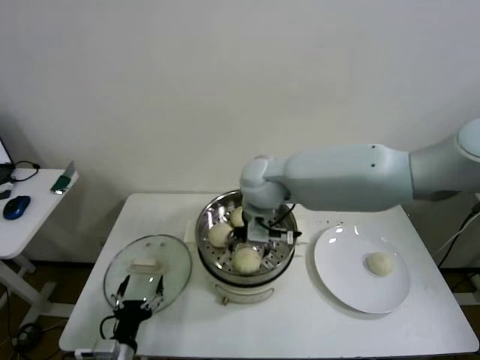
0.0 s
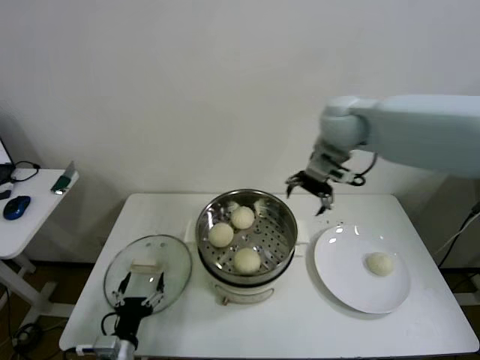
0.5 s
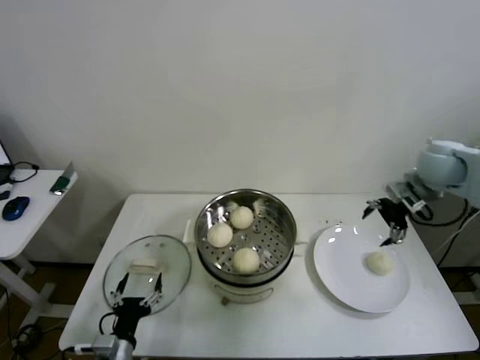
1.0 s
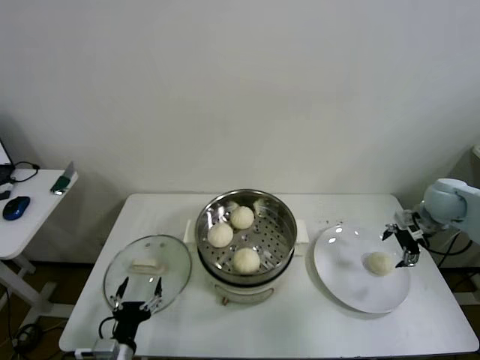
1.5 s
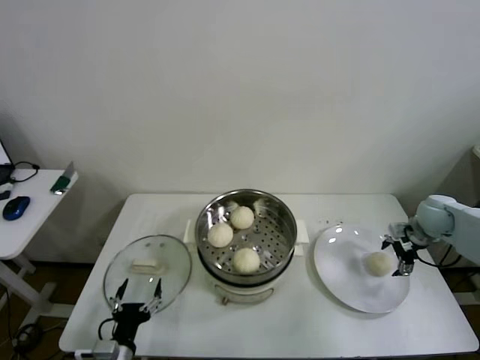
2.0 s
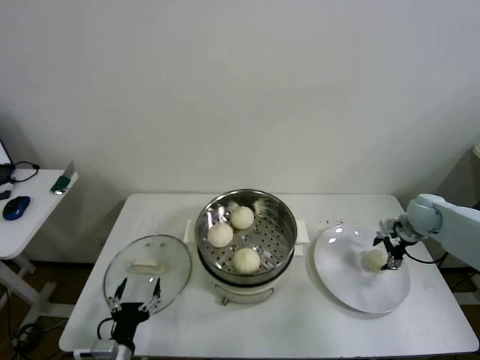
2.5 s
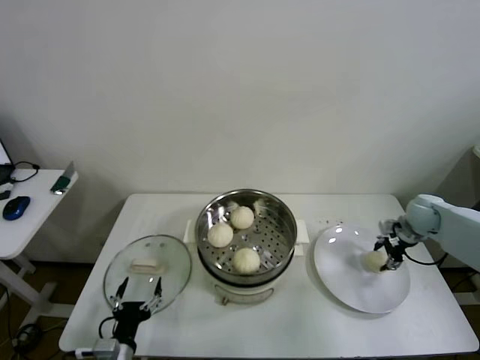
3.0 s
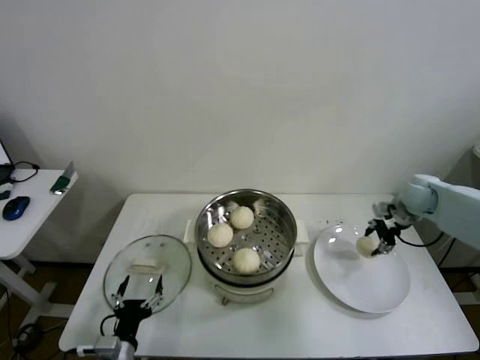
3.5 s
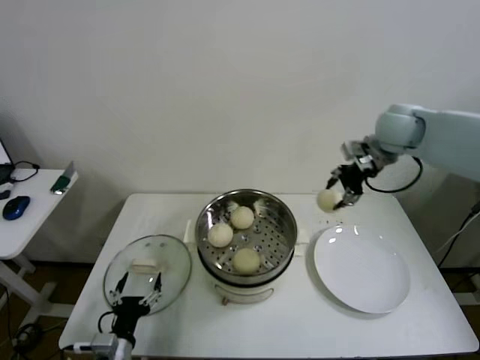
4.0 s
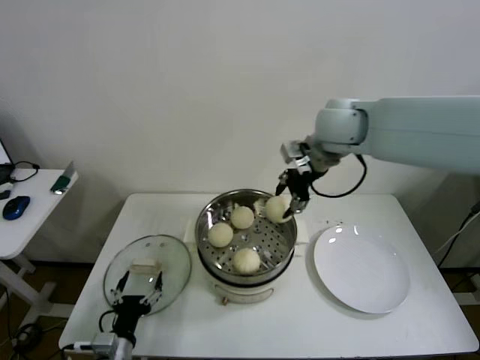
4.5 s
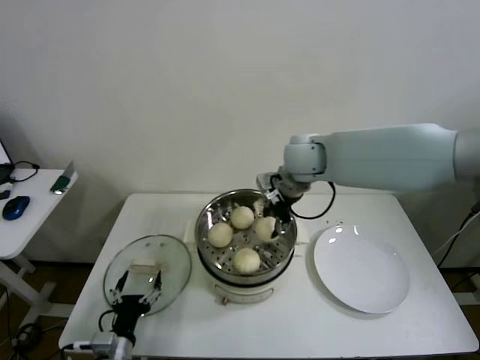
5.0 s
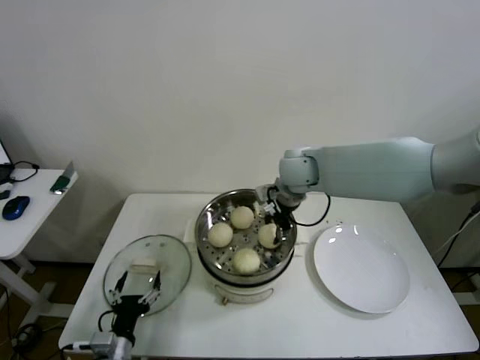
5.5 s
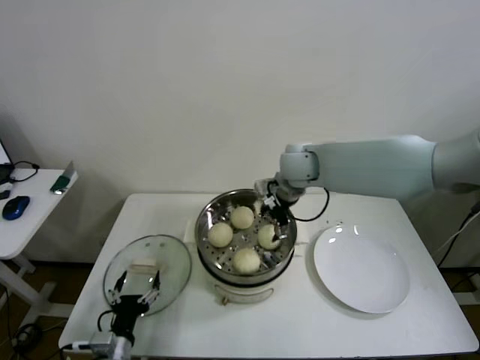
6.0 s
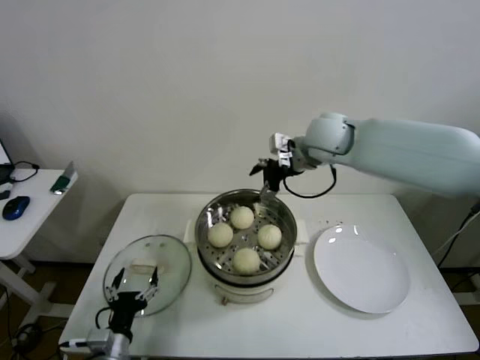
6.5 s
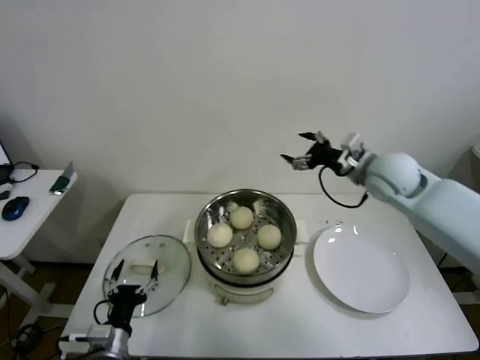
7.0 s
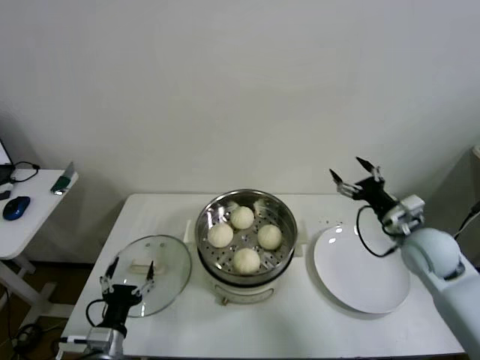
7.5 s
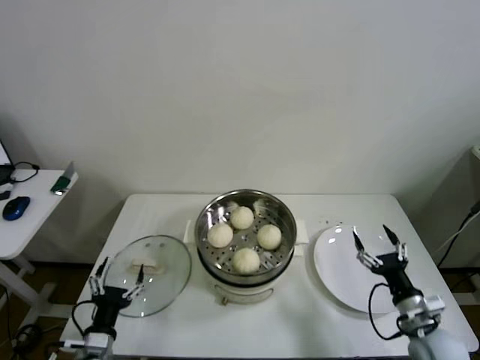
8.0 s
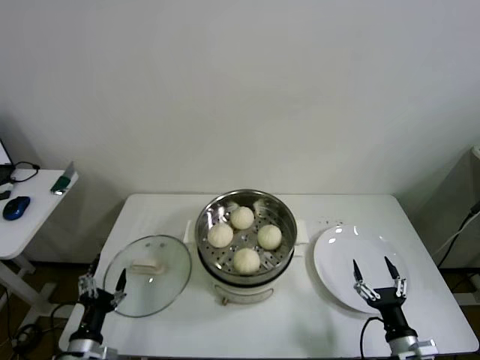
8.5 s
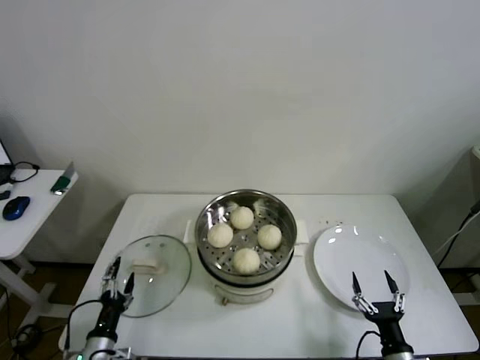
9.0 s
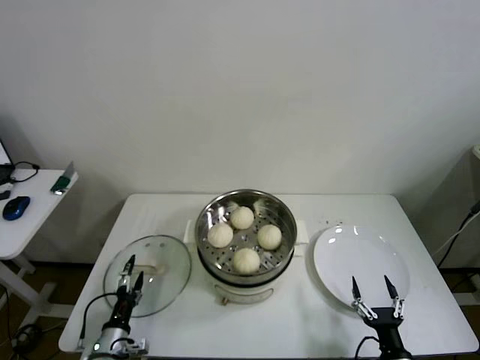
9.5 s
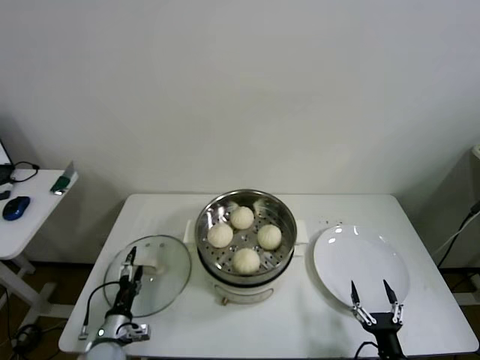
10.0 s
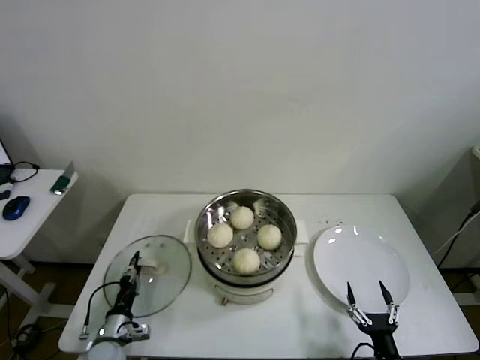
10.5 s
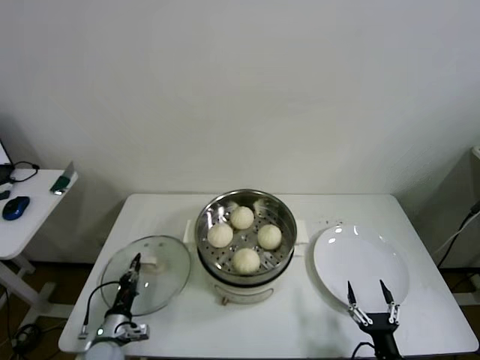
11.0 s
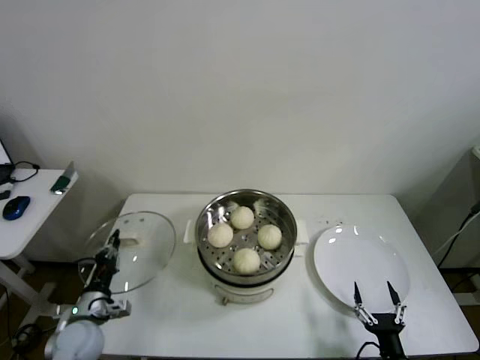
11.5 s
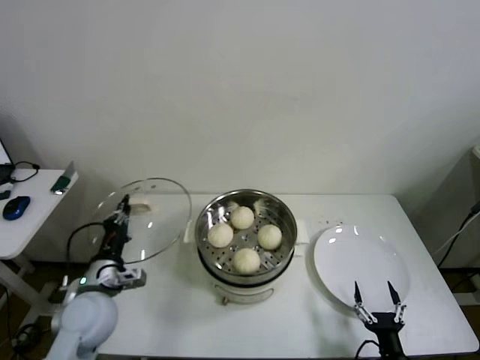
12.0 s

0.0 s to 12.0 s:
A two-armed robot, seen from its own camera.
Step, 0.5 to 2.5 s: Grasp the baozi in the plate with right gripper.
Step, 3.0 to 6.0 s: Place the baozi on the steamer with right gripper.
Step, 6.5 to 10.5 s: Grasp the pot lid with left gripper.
0.0 to 2.0 s: The right gripper heads to the right, covering some 40 cm.
2.0 to 4.0 s: The right gripper goes about 30 cm upward and to the left, and closes.
4.0 to 6.0 s: The right gripper shifts some 20 cm to the left and downward, and opens up.
6.0 to 8.0 s: The right gripper moves backward, to the right and downward, approximately 50 cm.
8.0 to 10.0 s: The left gripper is displaced downward and forward by approximately 10 cm. Meanwhile the right gripper heads backward, downward and to the left, covering approximately 15 cm.
10.0 to 12.0 s: The left gripper is displaced upward by about 20 cm, and closes its fingers.

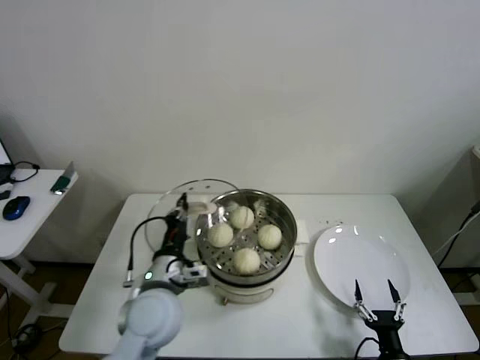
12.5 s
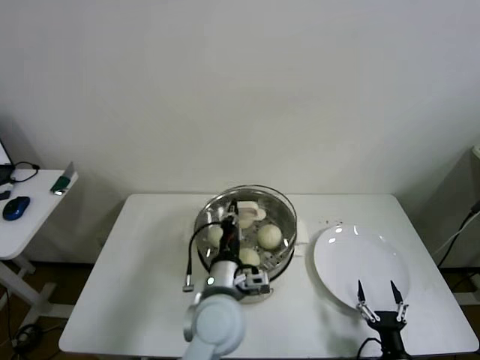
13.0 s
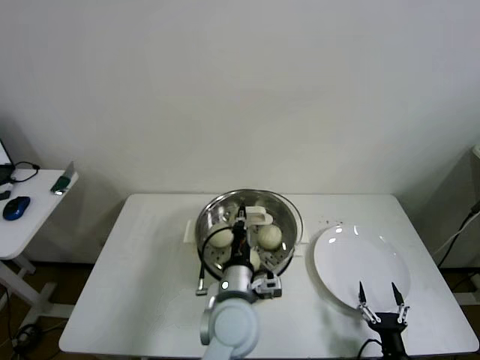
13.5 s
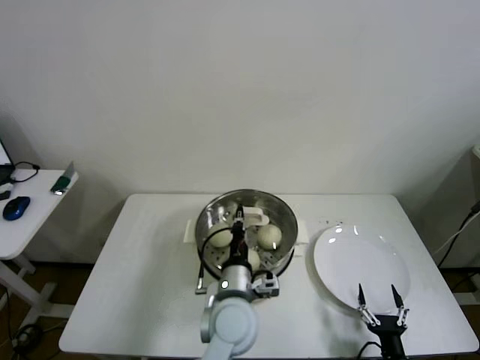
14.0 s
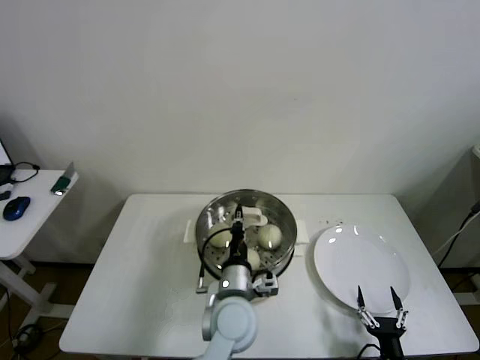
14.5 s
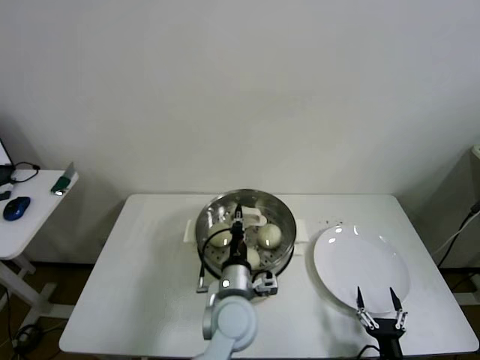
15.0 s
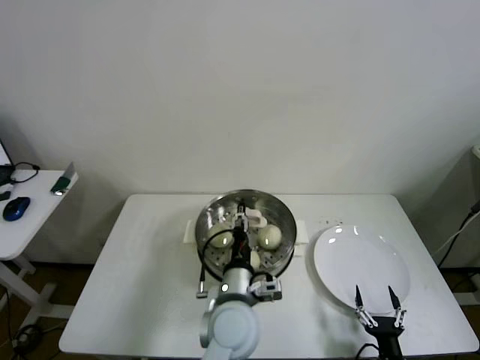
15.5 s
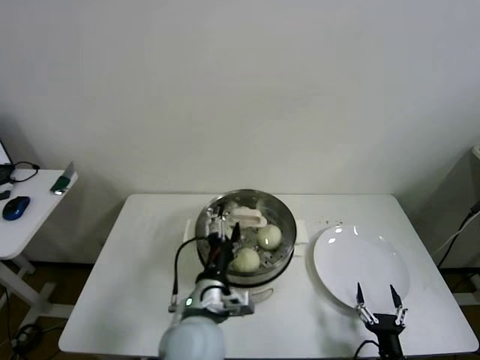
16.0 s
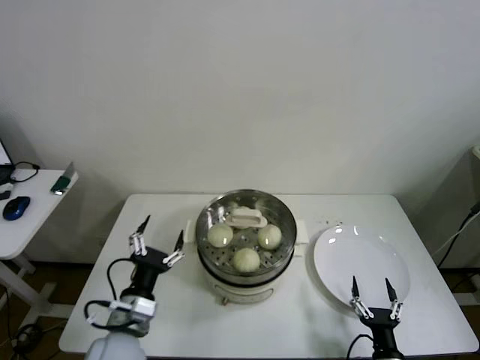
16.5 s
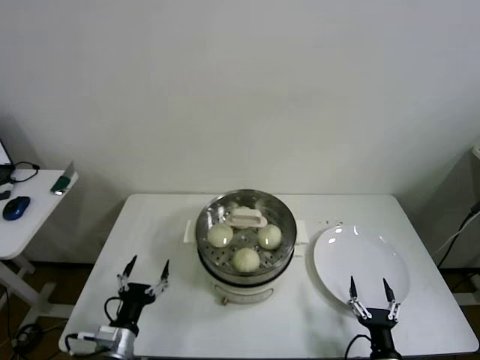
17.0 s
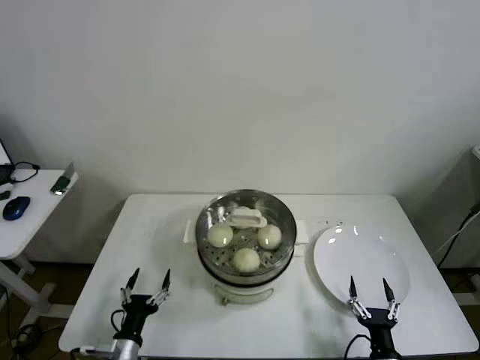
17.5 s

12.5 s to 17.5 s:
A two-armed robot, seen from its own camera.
Step, 12.5 to 15.0 s: Place the pot lid on the steamer with left gripper.
12.5 to 15.0 s: The left gripper shifts about 15 cm to the right.
15.0 to 17.5 s: The left gripper goes approximately 30 cm to the left, downward and backward, and opens.
